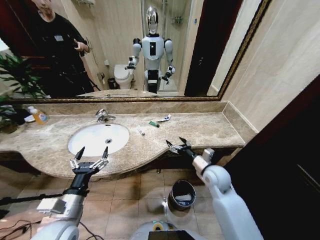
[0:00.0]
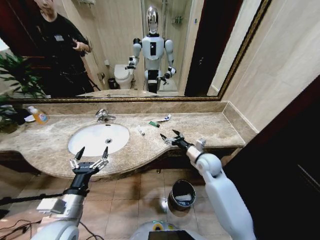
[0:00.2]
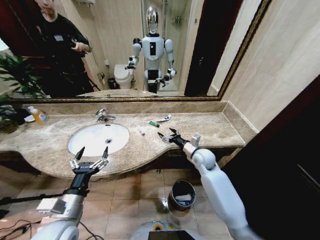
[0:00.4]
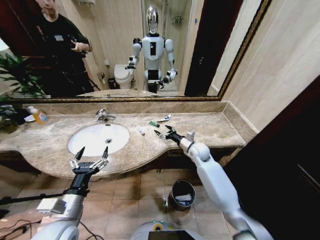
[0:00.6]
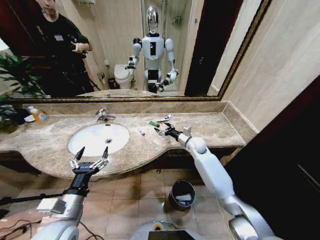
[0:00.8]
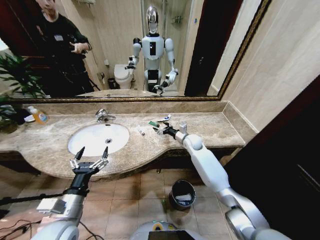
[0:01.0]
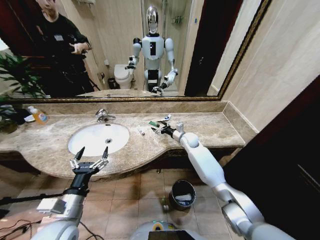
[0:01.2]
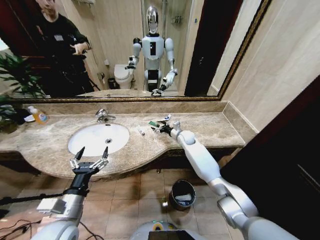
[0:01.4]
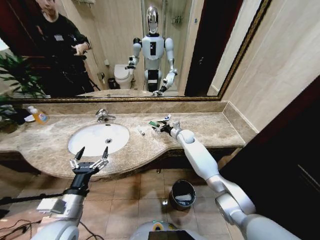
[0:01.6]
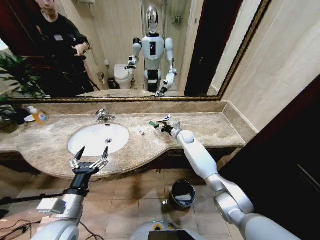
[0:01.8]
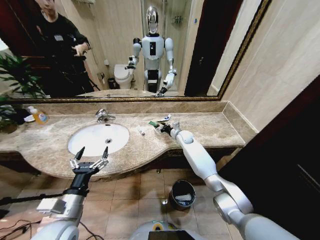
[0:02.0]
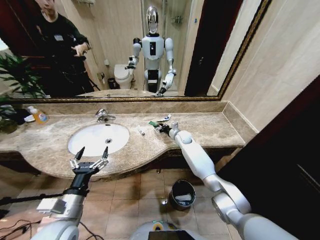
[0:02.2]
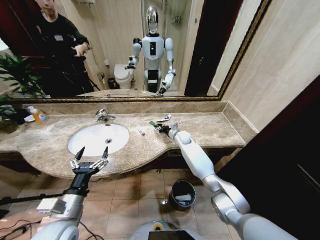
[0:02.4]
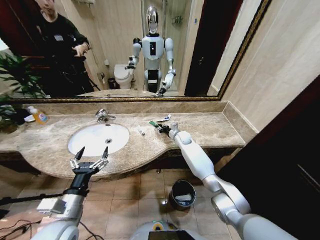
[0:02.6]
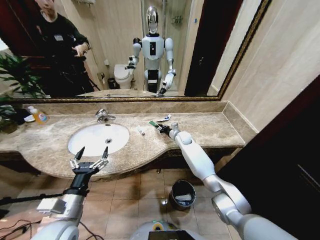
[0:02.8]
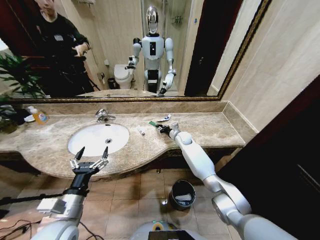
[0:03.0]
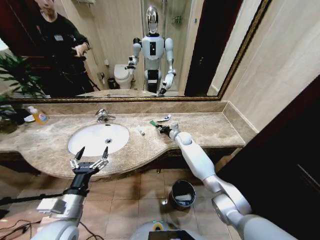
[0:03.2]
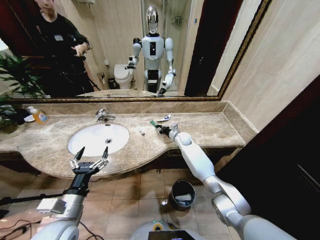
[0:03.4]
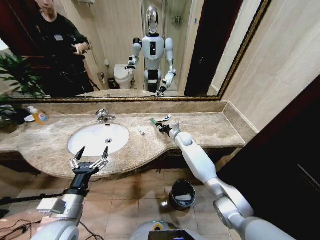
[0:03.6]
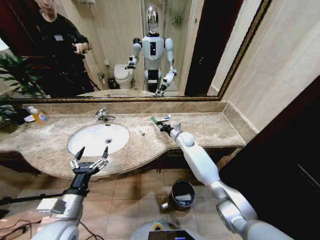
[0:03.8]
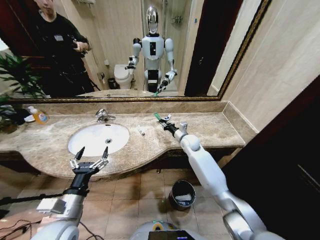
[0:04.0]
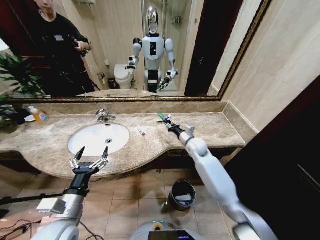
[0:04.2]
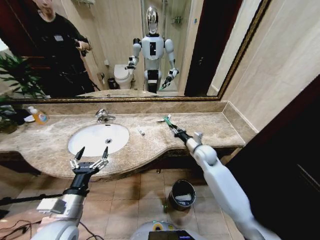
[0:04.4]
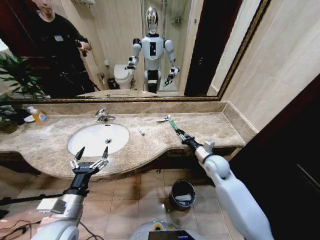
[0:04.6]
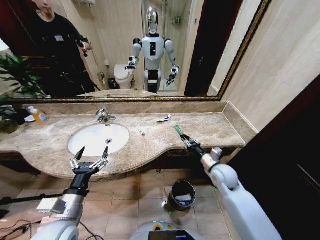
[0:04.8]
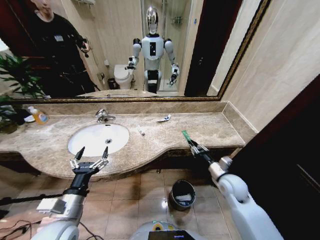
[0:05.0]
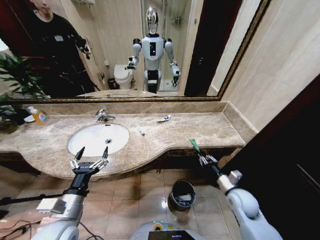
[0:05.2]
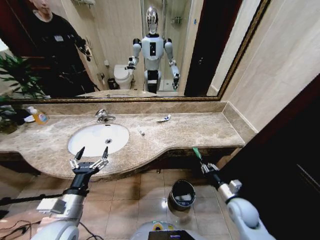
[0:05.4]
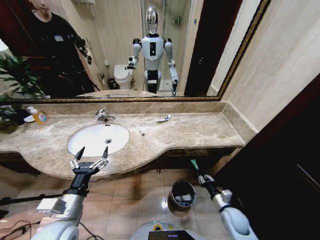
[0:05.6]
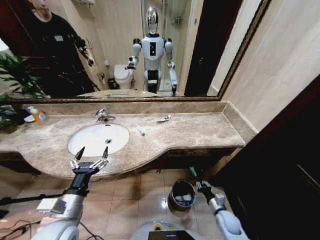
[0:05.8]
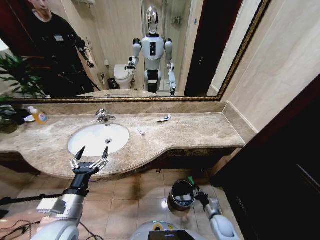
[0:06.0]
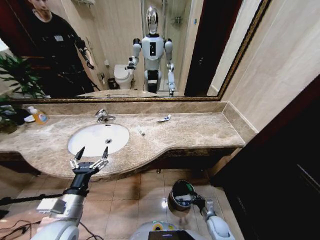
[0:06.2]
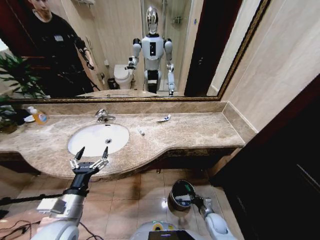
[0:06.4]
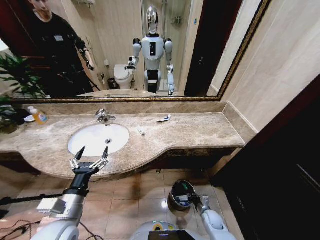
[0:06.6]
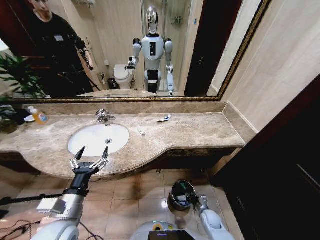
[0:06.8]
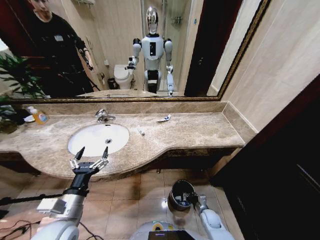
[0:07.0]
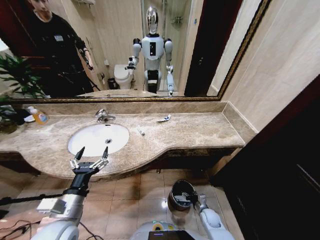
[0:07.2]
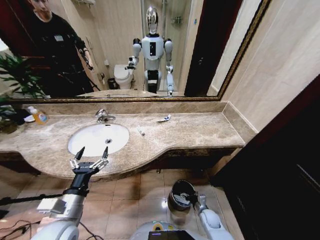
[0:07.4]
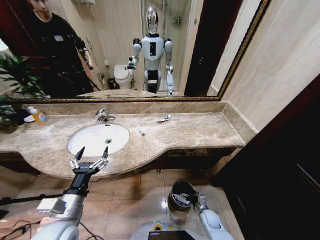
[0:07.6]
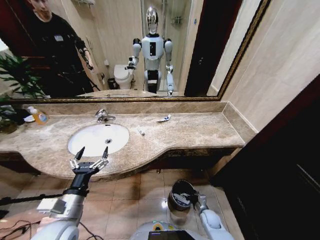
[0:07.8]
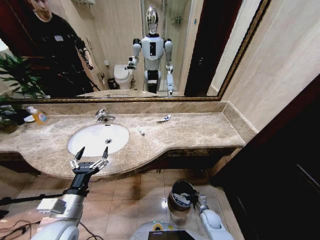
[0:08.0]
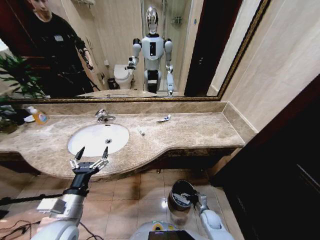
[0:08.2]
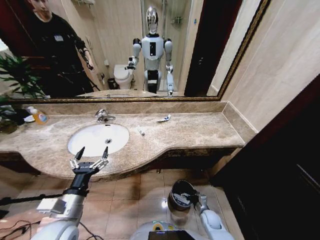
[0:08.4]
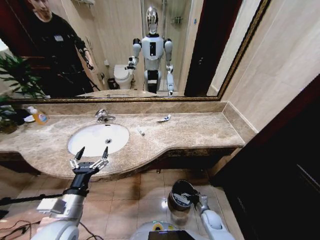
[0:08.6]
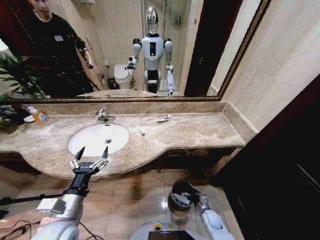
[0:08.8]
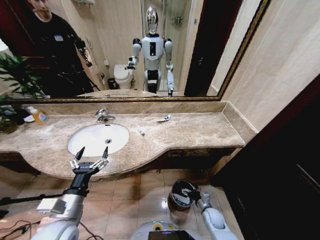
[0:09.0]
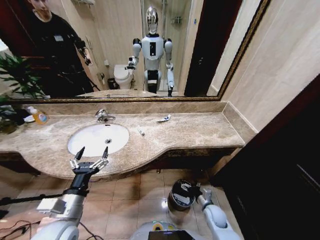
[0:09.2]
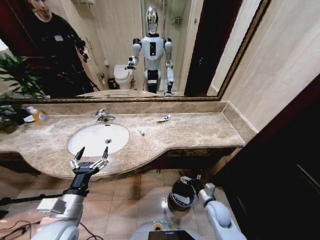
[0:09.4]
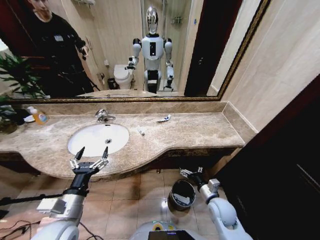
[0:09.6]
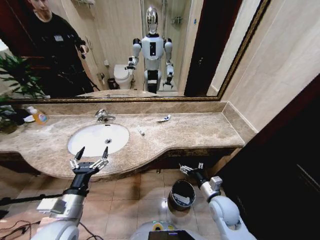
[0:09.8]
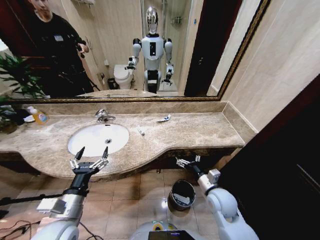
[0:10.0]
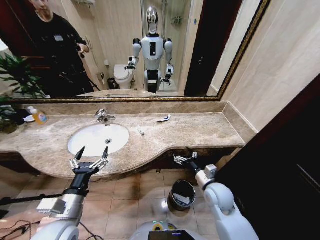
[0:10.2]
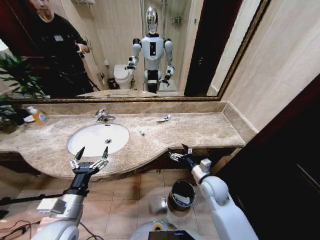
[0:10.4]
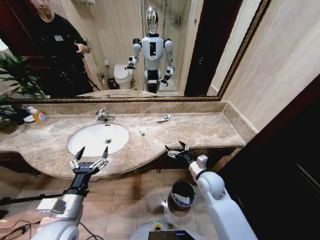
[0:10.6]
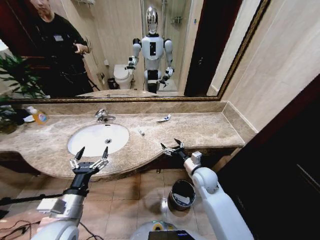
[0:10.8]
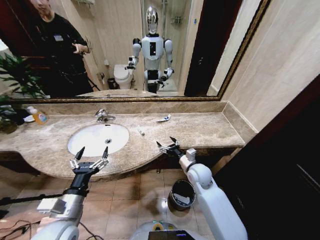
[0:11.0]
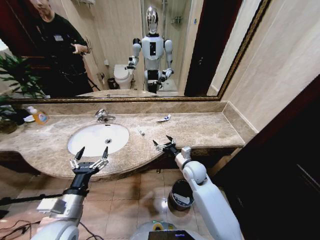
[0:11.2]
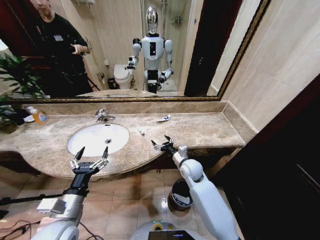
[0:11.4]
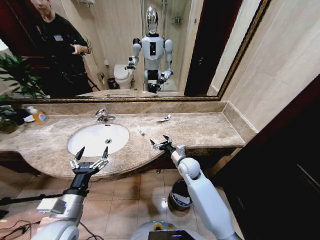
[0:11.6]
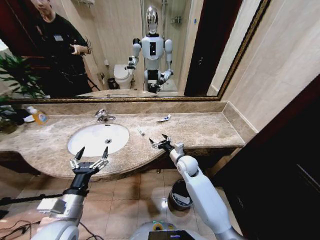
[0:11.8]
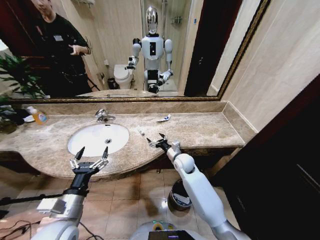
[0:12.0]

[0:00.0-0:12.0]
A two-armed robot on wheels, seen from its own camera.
Task of the whole recording: Pick up the trash from the sink and place it in the trash bin.
0:00.0 to 0:01.6: The right gripper heads forward, covering approximately 25 cm.
0:01.6 to 0:03.0: The right gripper closes up.
0:03.0 to 0:04.4: The right gripper moves backward and to the right, some 20 cm.
0:04.4 to 0:06.0: The right gripper moves downward and backward, approximately 35 cm.
0:06.0 to 0:07.6: The right gripper changes place by approximately 5 cm, and opens its fingers.
0:07.6 to 0:09.0: The grippers move only a little.
0:09.0 to 0:10.4: The right gripper is displaced upward by roughly 25 cm.
0:10.4 to 0:12.0: The right gripper moves forward and to the left, about 15 cm.

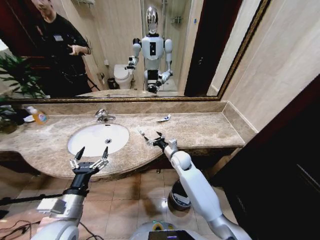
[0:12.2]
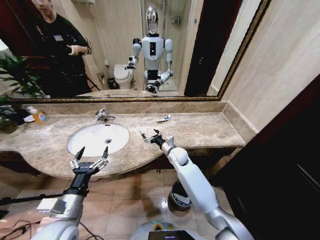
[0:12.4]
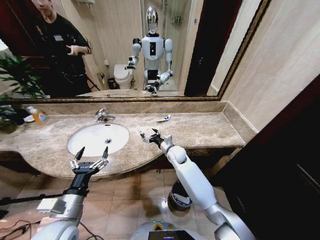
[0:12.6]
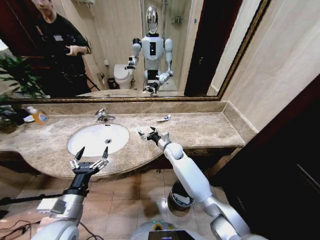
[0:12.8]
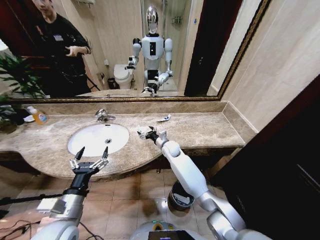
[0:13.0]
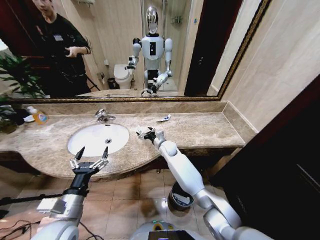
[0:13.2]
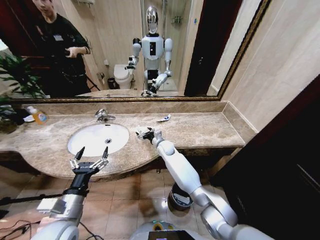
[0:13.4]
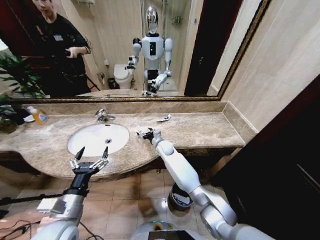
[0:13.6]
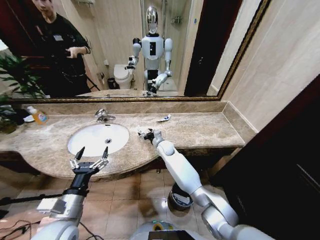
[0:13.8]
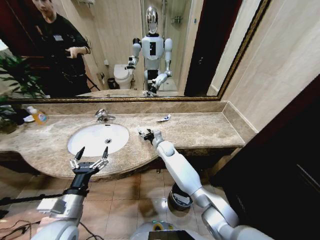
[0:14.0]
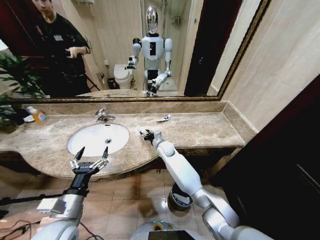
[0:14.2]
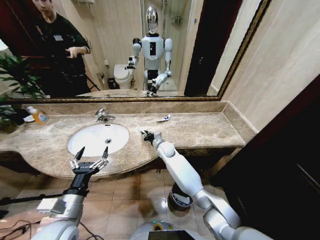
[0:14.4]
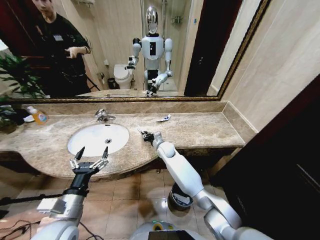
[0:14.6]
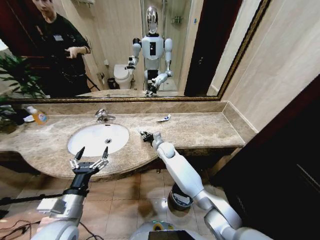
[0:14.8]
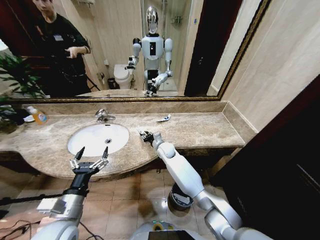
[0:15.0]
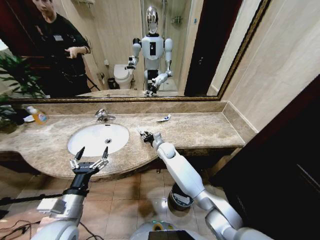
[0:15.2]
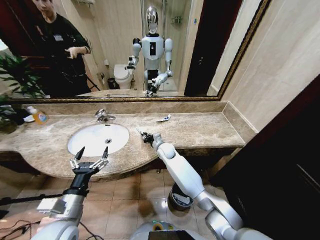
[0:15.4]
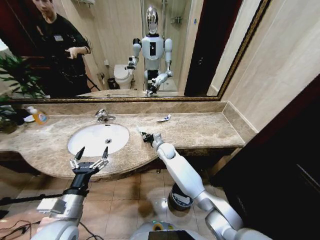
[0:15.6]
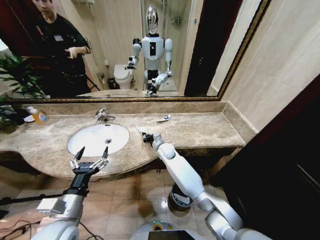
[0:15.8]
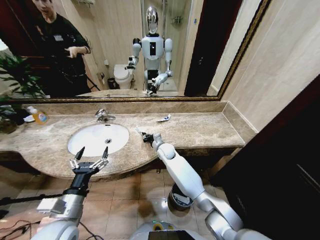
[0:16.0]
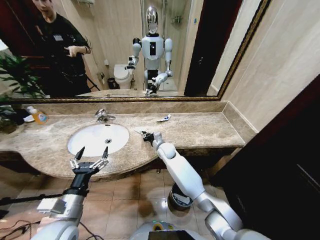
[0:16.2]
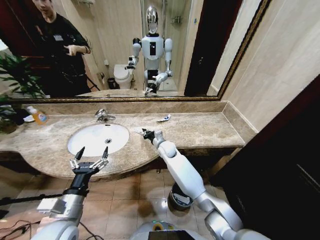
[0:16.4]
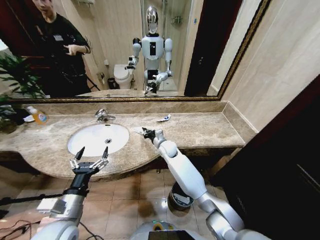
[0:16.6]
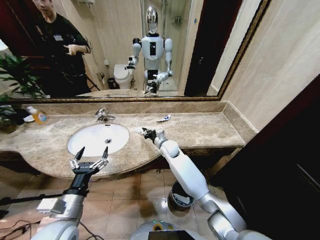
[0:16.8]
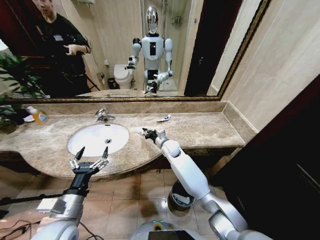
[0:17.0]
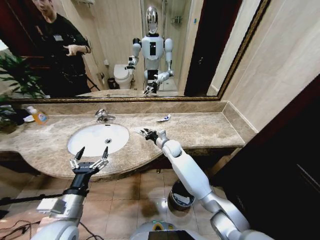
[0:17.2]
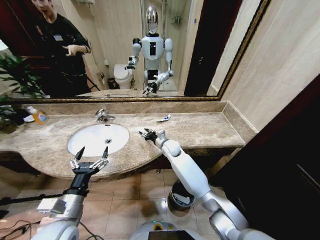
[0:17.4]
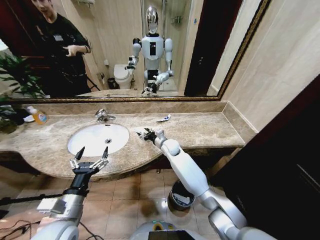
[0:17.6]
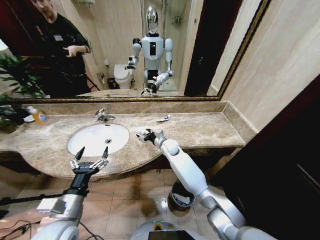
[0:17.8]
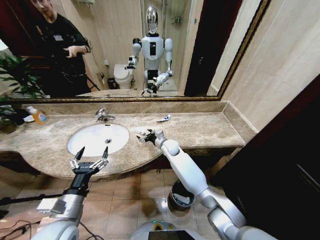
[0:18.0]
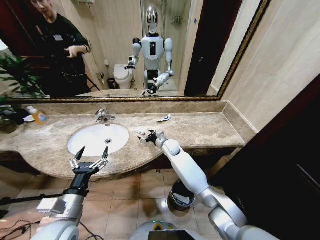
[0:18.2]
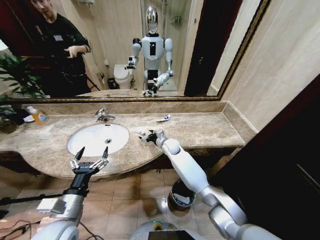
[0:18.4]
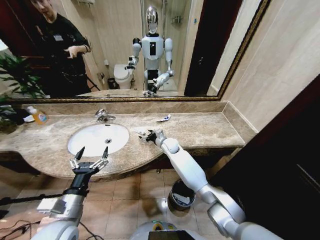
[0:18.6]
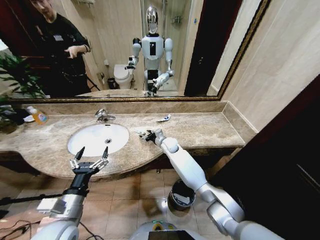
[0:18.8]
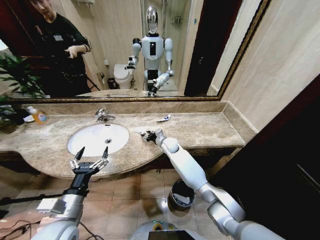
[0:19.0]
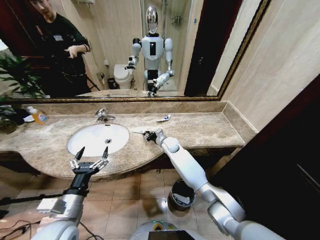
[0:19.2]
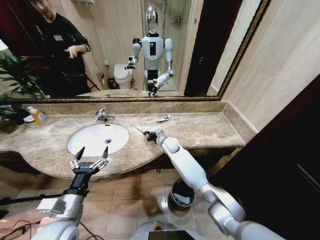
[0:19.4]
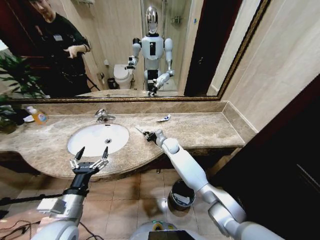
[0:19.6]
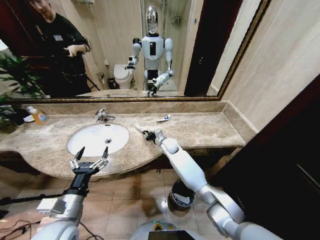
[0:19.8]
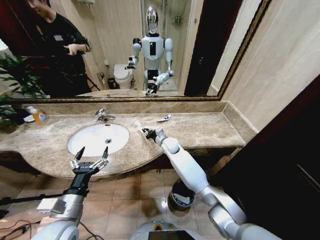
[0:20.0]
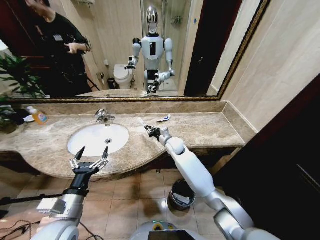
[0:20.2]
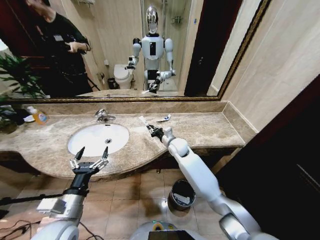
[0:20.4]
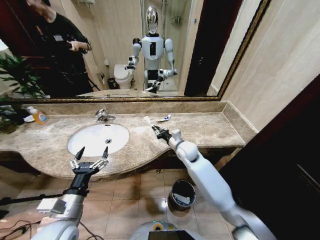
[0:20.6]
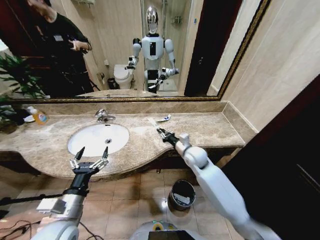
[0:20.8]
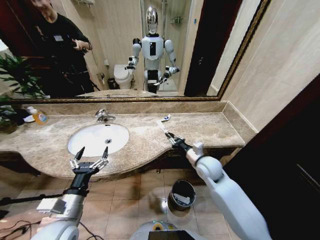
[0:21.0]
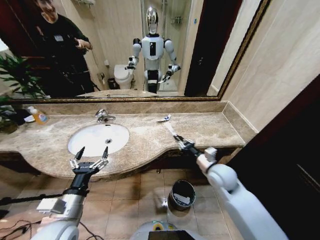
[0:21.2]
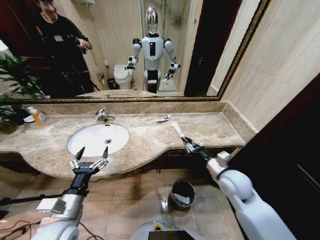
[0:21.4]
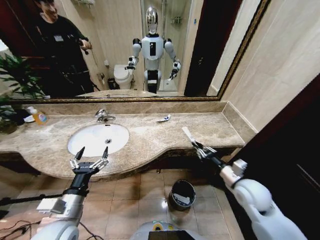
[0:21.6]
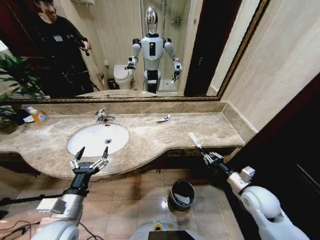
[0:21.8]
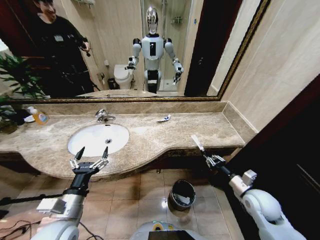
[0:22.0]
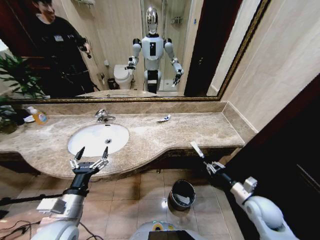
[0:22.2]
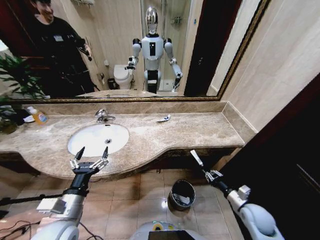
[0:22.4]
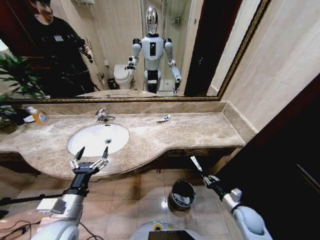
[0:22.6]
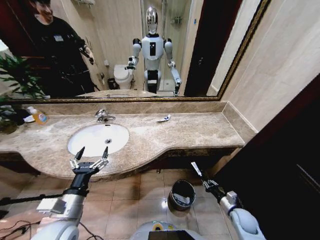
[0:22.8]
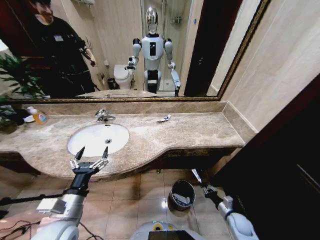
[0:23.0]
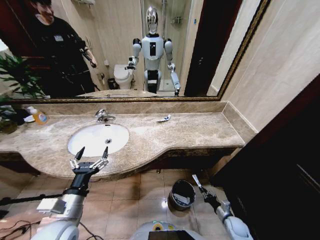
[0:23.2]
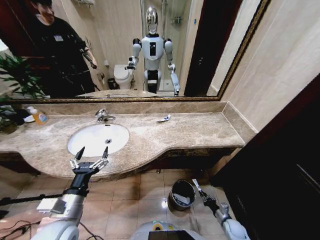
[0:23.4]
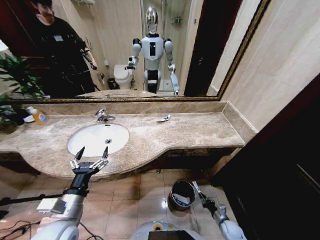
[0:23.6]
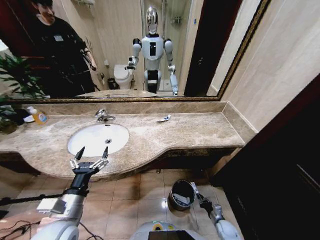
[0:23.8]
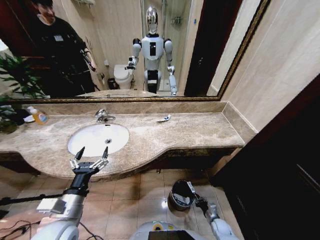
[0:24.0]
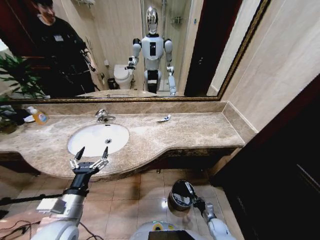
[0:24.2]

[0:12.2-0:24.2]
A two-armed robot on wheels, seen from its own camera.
Task of the whole recording: Pick up the trash from the sink and place it in the trash bin.
0:12.2 to 0:13.8: The right gripper travels forward and to the left by roughly 10 cm.
0:13.8 to 0:15.2: The right gripper closes.
0:15.2 to 0:16.6: The right gripper closes its fingers.
0:16.6 to 0:18.2: The right gripper opens its fingers.
0:18.2 to 0:19.8: The right gripper closes.
0:19.8 to 0:21.2: The right gripper heads backward and to the right, covering approximately 30 cm.
0:21.2 to 0:22.6: The right gripper shifts roughly 25 cm downward, to the right and backward.
0:22.6 to 0:24.2: The right gripper is displaced downward by roughly 20 cm.
